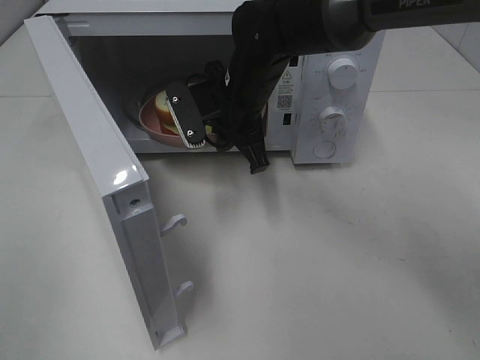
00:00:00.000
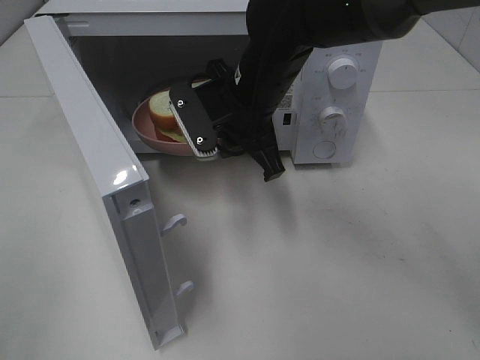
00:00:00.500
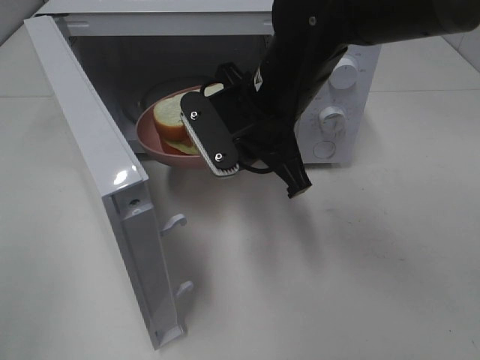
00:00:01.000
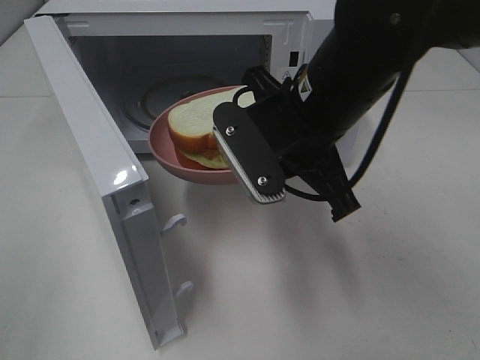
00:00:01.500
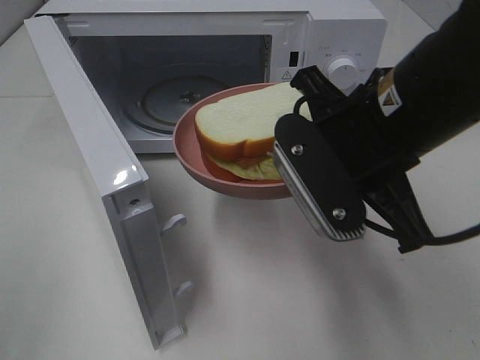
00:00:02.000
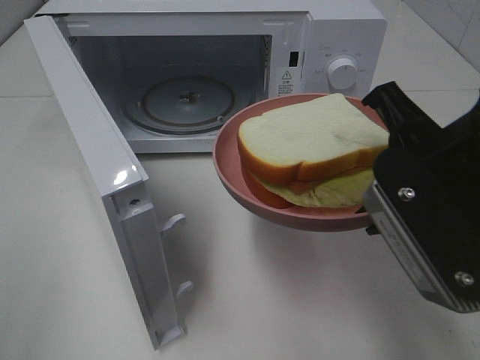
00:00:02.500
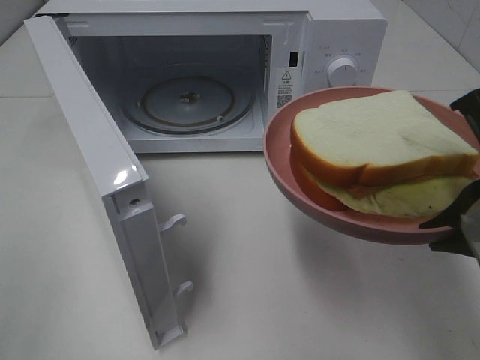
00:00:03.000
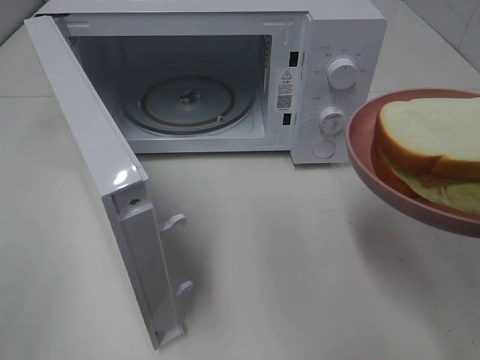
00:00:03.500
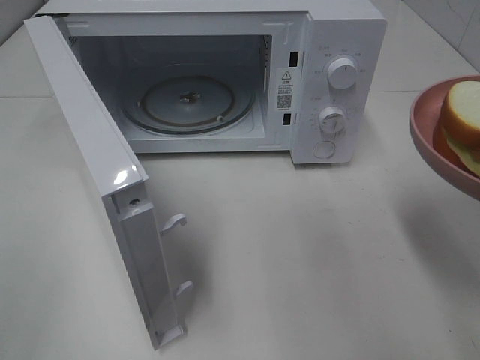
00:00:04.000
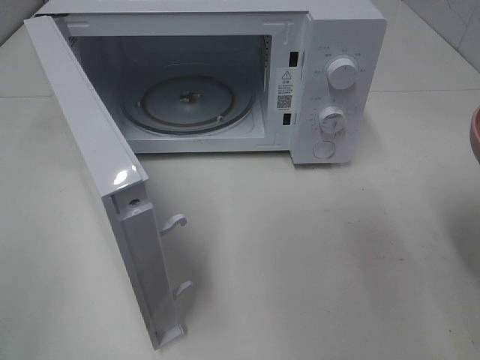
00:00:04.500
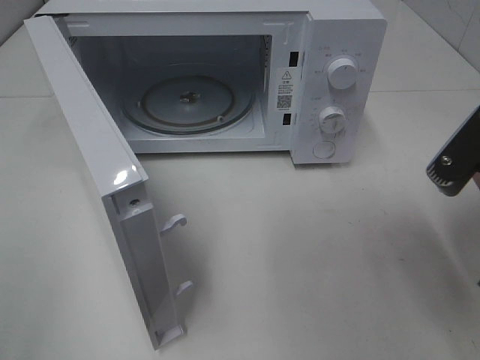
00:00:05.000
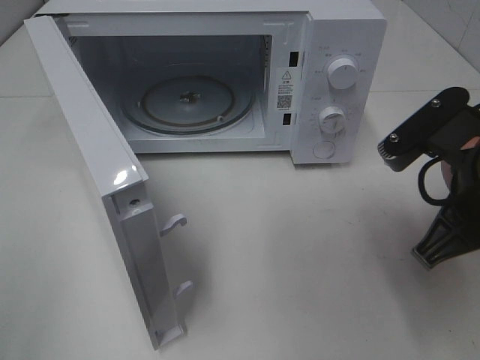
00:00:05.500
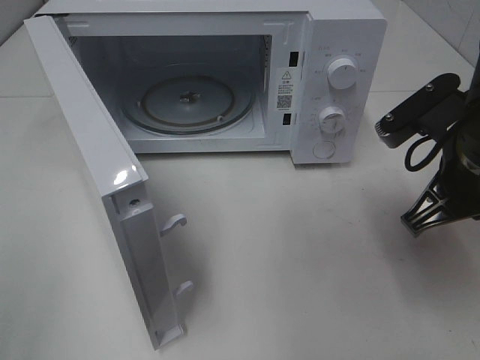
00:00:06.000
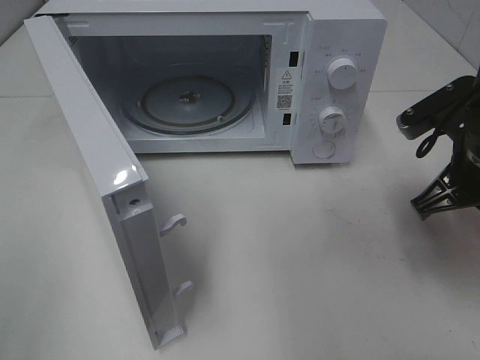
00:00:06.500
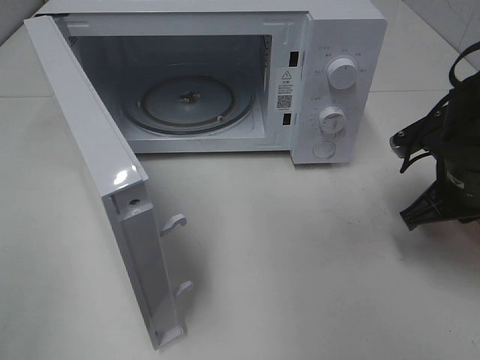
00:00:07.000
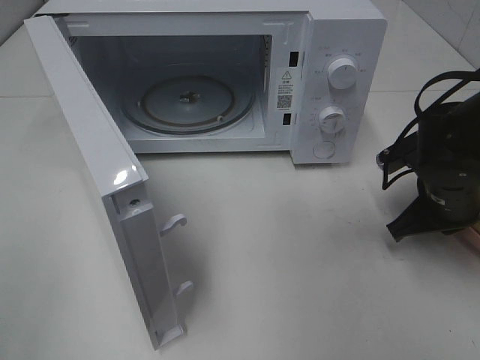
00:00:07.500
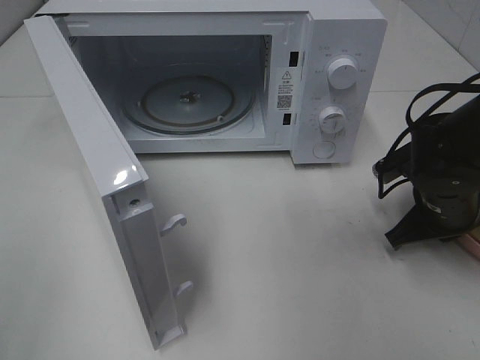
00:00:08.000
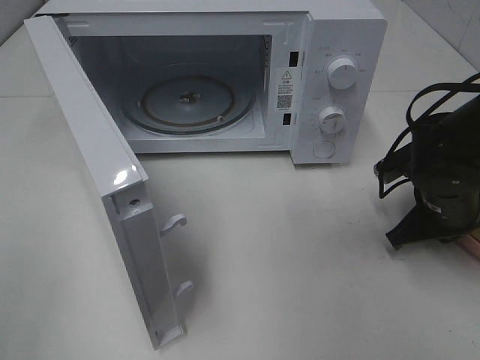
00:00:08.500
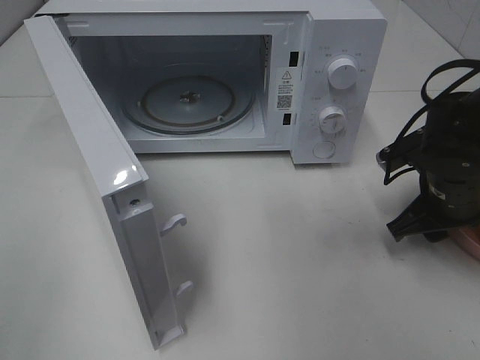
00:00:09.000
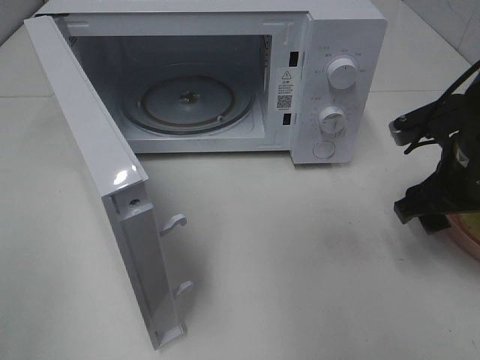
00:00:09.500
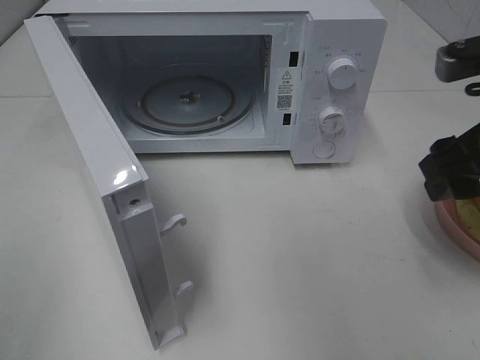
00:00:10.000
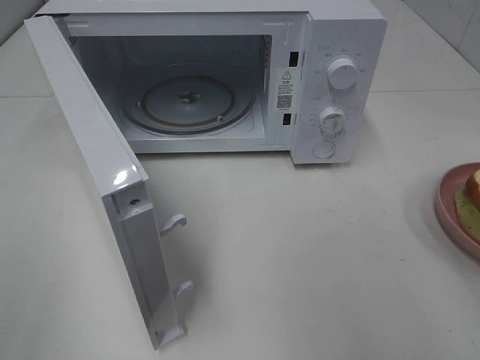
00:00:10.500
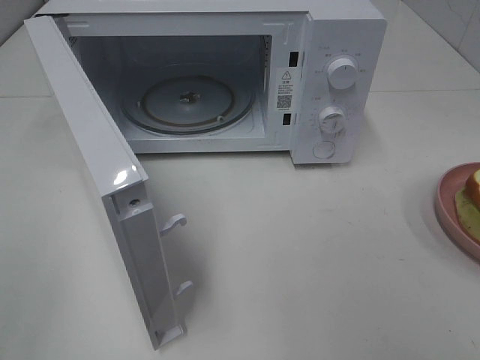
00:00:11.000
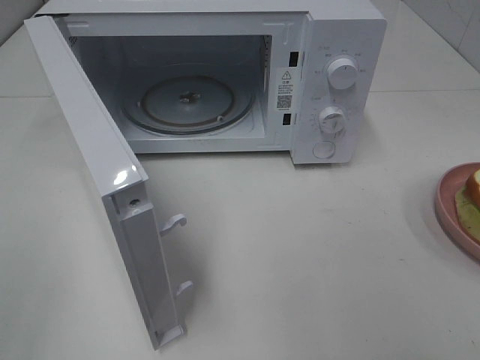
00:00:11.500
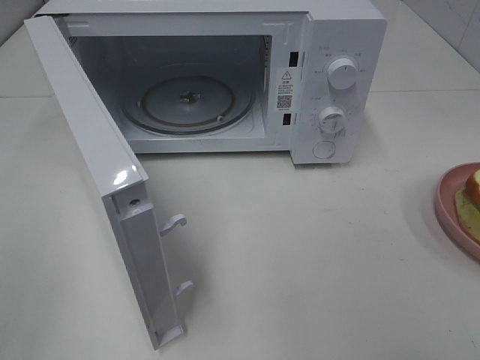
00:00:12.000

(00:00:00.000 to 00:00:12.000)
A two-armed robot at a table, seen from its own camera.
Task of the whole recording: Heat Sandwich.
Step, 00:00:00.000 - 00:00:09.000: Right hand: place the plate on the table.
00:00:00.000 - 00:00:02.000: The right gripper is displaced backward, to the right and upward by some 20 cm.
00:00:02.000 - 00:00:04.000: The right gripper heads to the right and backward, covering roughly 15 cm.
00:00:04.000 - 00:00:06.000: The right gripper moves forward and downward, roughly 15 cm.
00:00:06.000 - 00:00:08.000: The right gripper heads downward and forward, covering some 15 cm.
00:00:08.000 - 00:00:10.000: The right gripper is displaced upward and backward by roughly 20 cm, and opens up.
00:00:10.000 - 00:00:12.000: The right gripper goes approximately 20 cm backward.

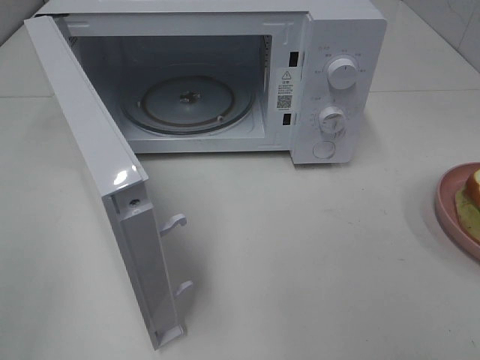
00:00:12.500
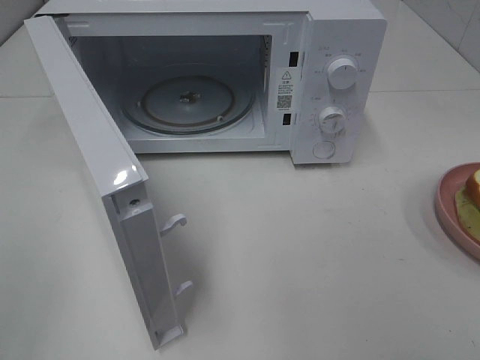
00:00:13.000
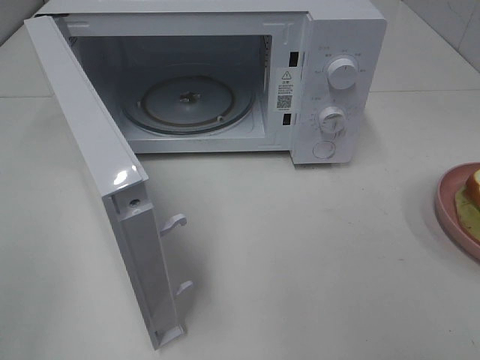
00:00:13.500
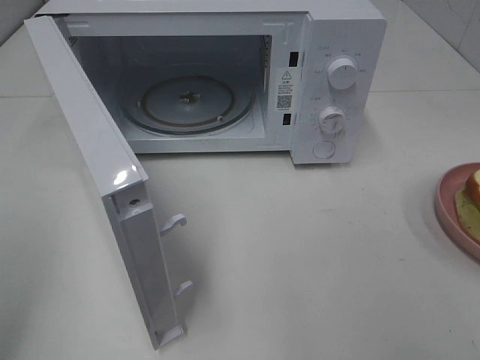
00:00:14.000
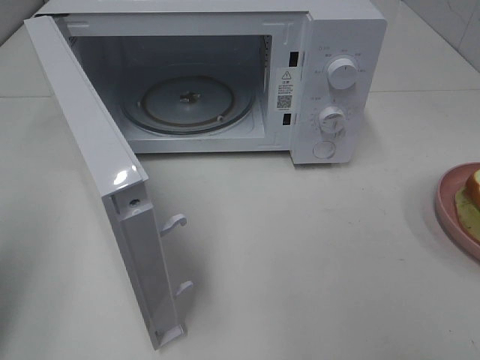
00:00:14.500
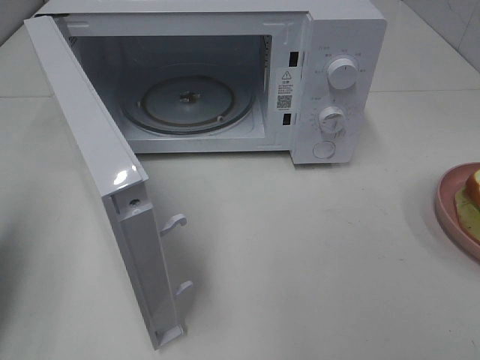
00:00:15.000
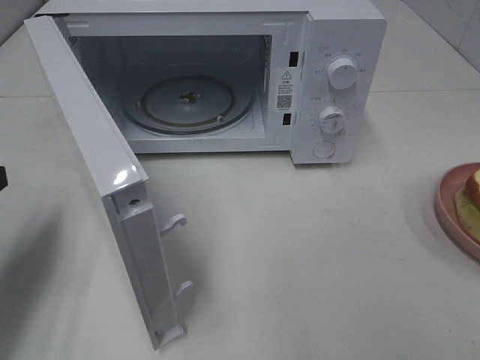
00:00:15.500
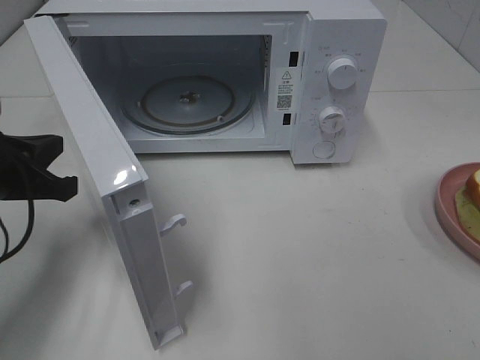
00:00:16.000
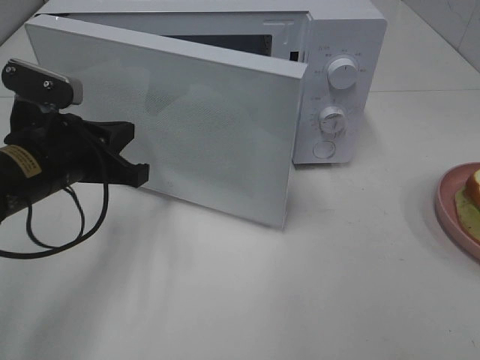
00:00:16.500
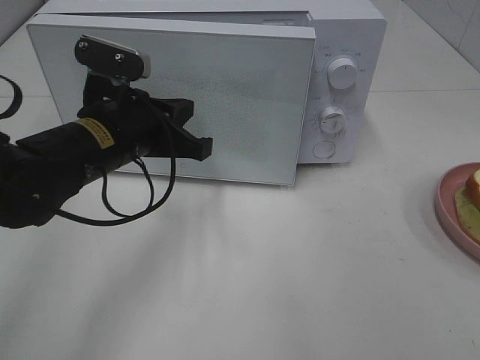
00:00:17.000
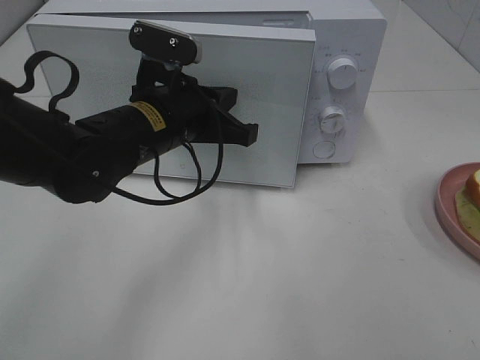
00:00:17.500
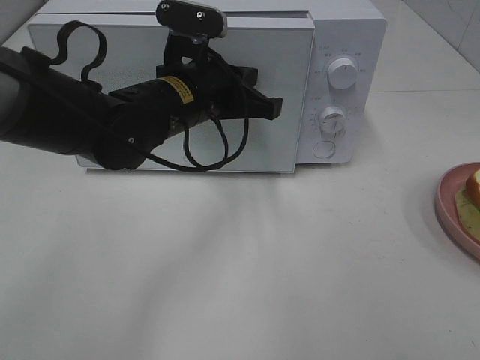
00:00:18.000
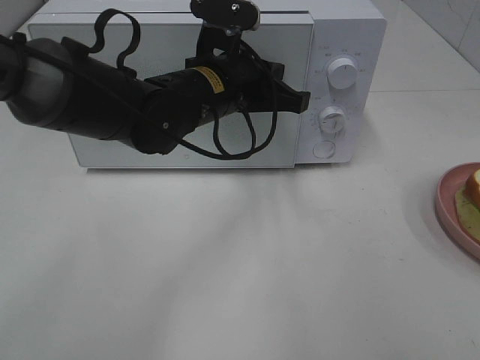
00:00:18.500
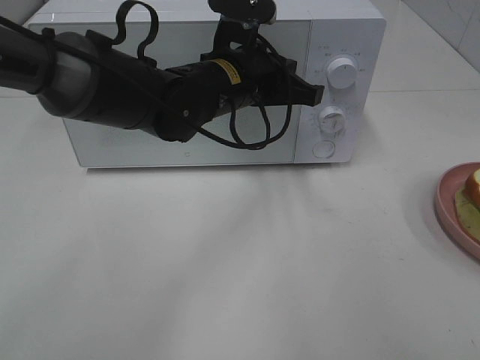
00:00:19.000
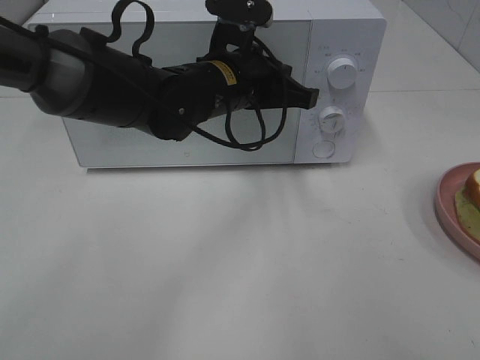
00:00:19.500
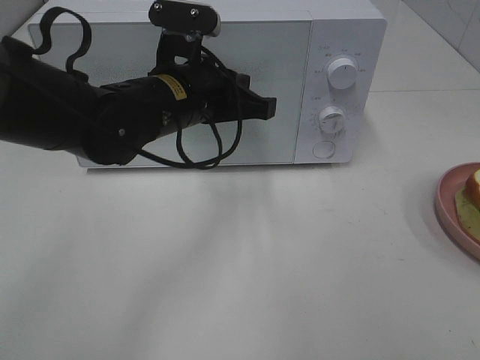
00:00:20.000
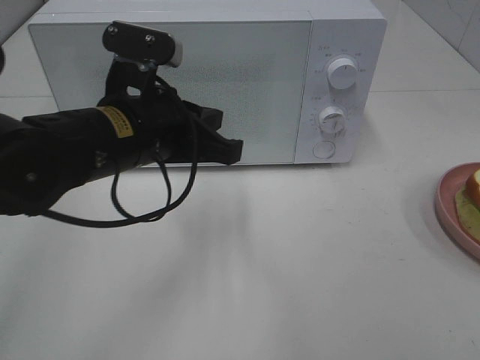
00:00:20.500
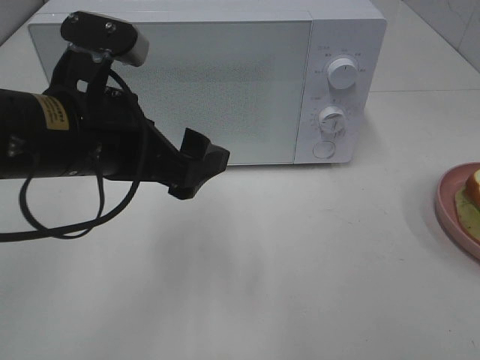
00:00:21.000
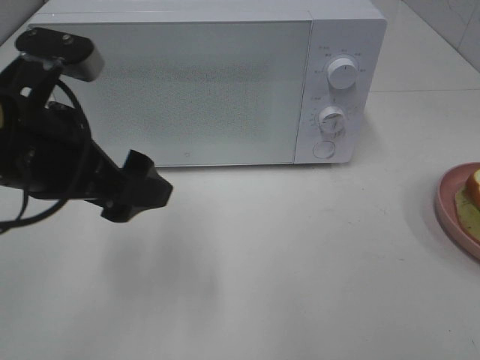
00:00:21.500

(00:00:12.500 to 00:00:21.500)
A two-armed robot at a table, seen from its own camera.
Task of the whole recording: Heat Sandwich.
Step, 00:00:12.500 - 00:00:20.000: Left hand: close the microwave door.
00:00:12.500 - 00:00:14.500: The left gripper shifts approximately 10 cm forward, and closes.
00:00:14.500 - 00:00:17.000: The left gripper shifts approximately 30 cm to the right, forward and downward.
00:00:17.000 - 00:00:19.500: The left gripper travels to the right and forward by roughly 15 cm.
00:00:19.500 - 00:00:21.500: The left gripper goes roughly 20 cm to the left and backward, and opens its fingers.

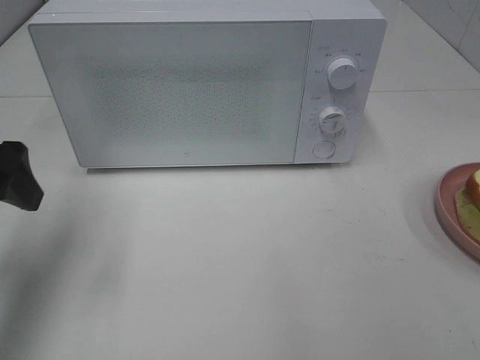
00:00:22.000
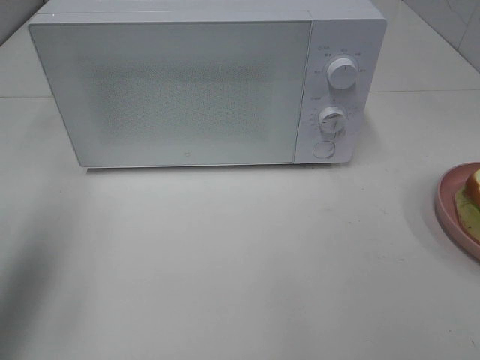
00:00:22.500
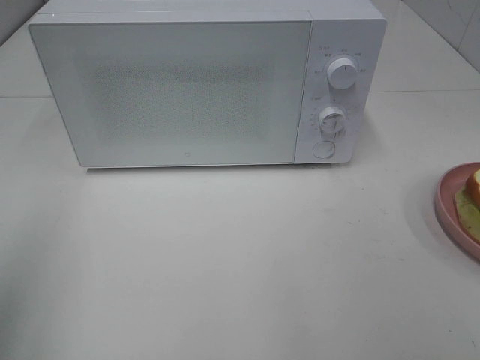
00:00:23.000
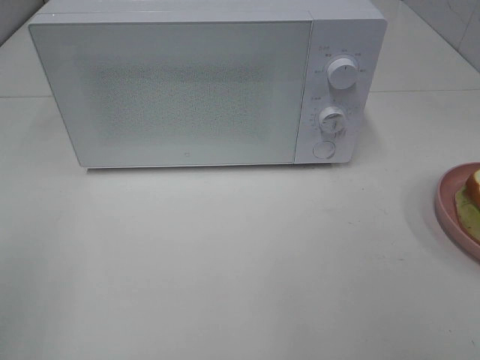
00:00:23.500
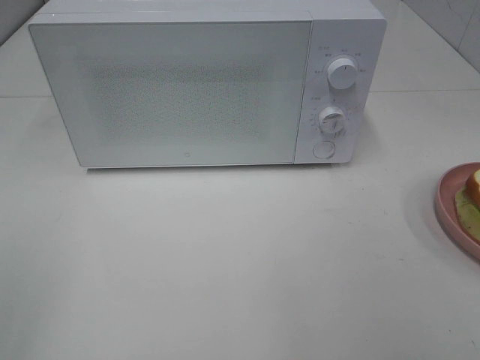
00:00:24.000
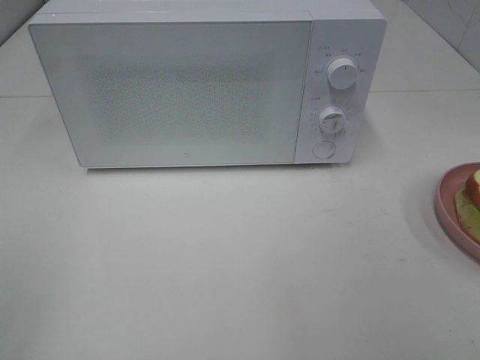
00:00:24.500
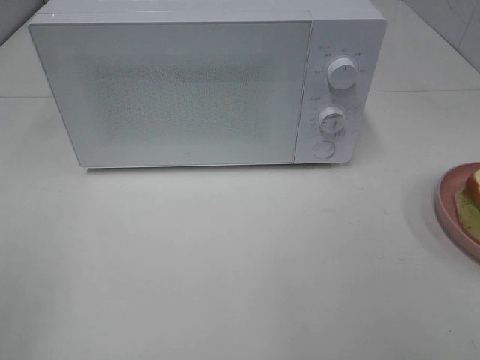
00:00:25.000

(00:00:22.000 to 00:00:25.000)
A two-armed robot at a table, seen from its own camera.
Task of the whole recording: Heat Sandwich.
00:00:22.000 - 00:00:23.500: The left gripper shifts about 20 cm backward.
